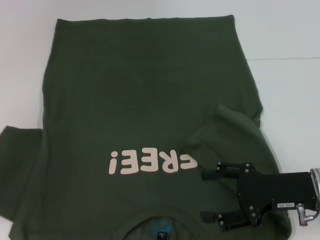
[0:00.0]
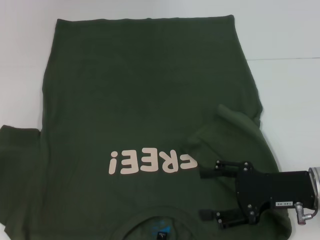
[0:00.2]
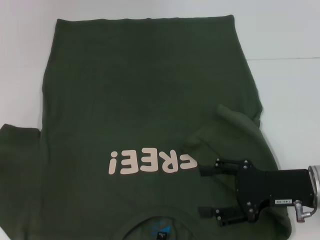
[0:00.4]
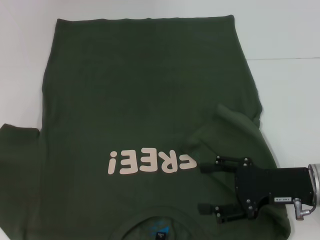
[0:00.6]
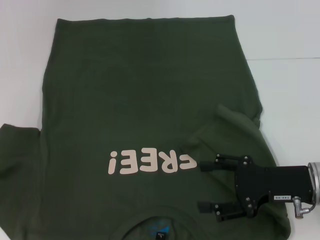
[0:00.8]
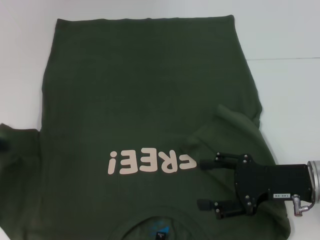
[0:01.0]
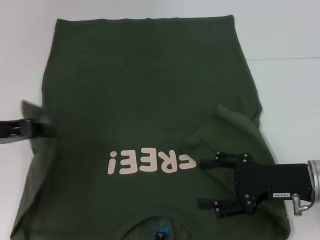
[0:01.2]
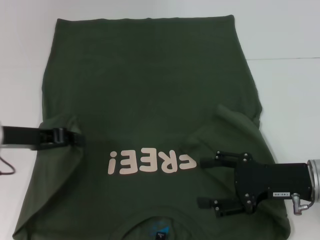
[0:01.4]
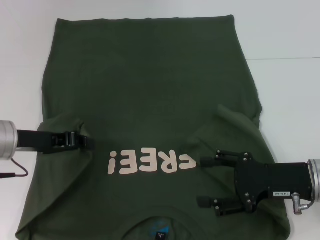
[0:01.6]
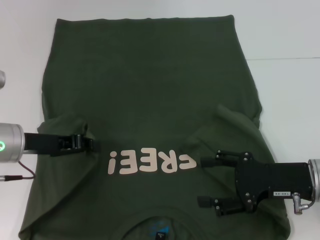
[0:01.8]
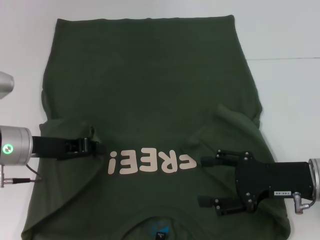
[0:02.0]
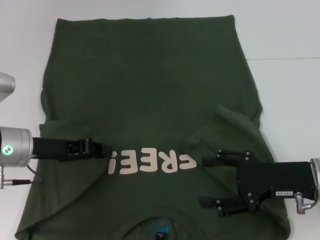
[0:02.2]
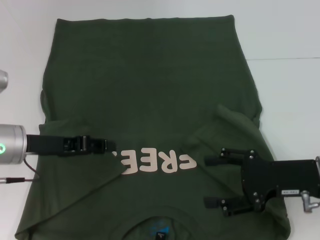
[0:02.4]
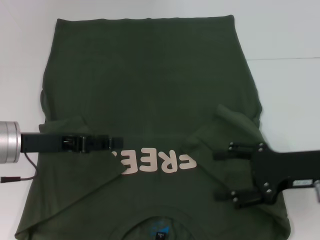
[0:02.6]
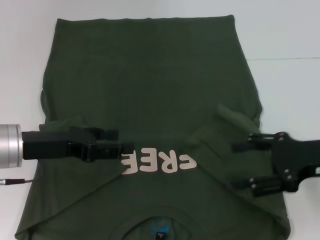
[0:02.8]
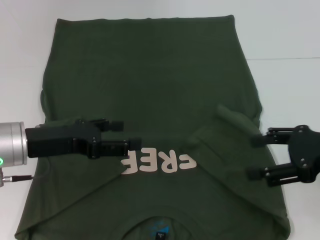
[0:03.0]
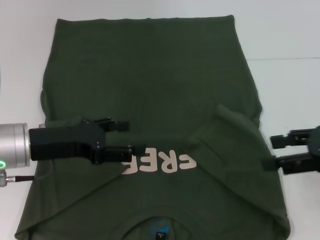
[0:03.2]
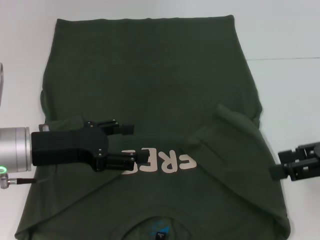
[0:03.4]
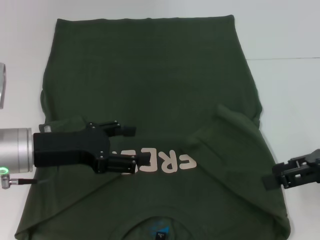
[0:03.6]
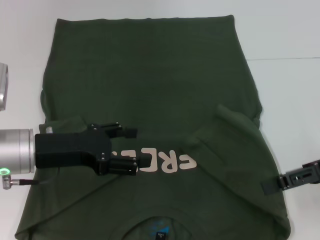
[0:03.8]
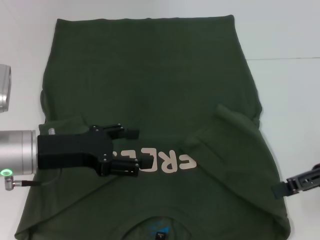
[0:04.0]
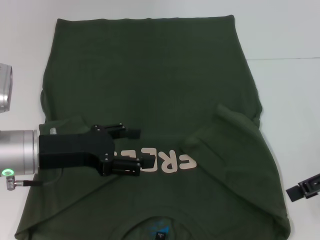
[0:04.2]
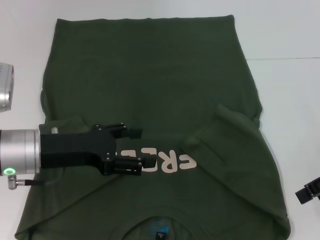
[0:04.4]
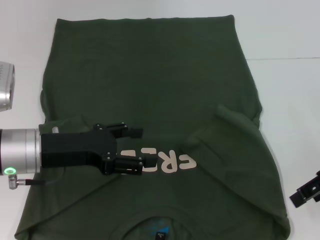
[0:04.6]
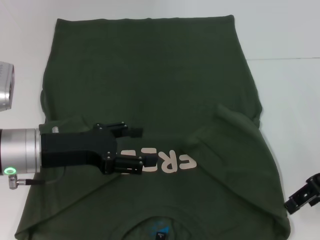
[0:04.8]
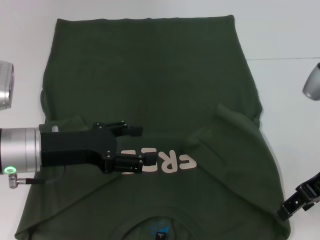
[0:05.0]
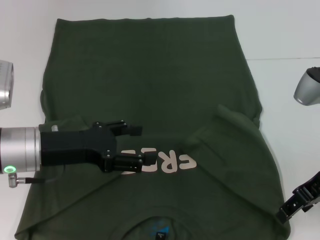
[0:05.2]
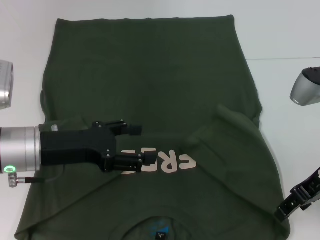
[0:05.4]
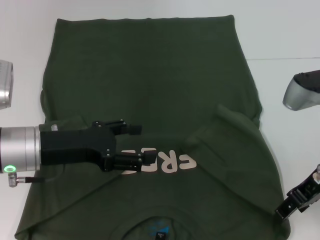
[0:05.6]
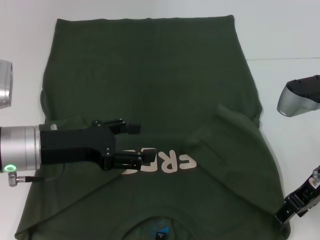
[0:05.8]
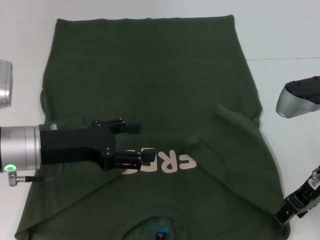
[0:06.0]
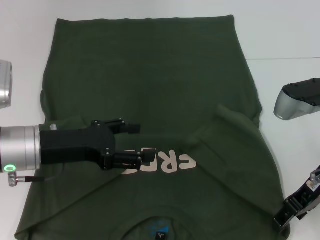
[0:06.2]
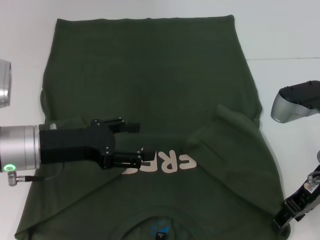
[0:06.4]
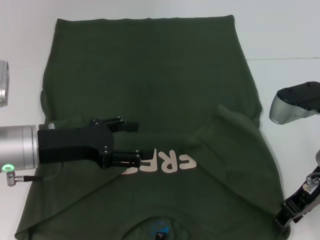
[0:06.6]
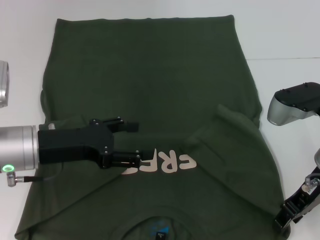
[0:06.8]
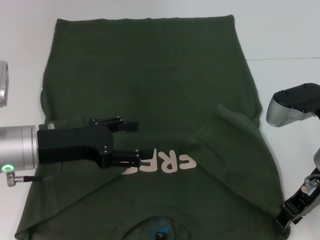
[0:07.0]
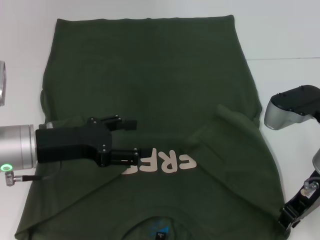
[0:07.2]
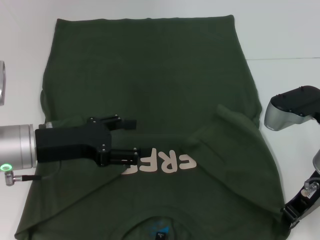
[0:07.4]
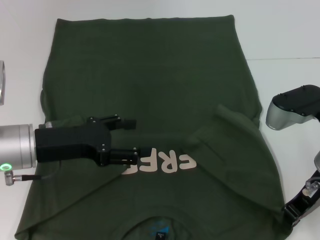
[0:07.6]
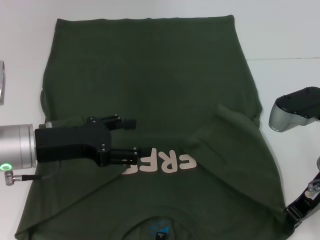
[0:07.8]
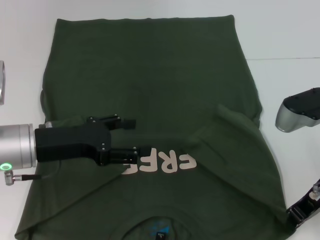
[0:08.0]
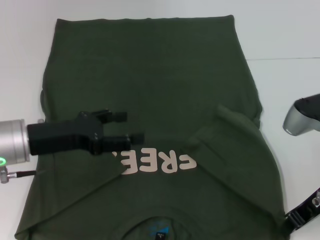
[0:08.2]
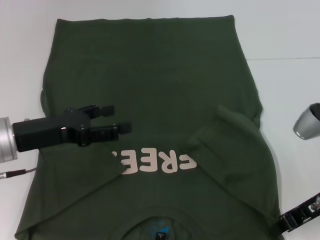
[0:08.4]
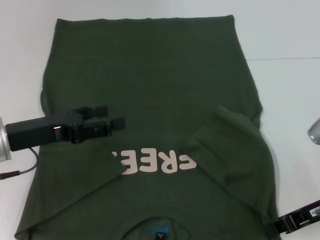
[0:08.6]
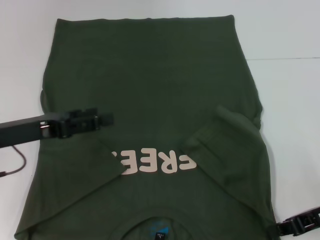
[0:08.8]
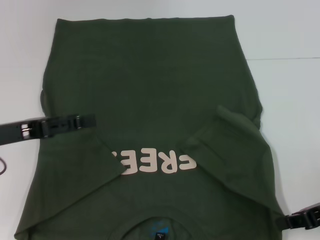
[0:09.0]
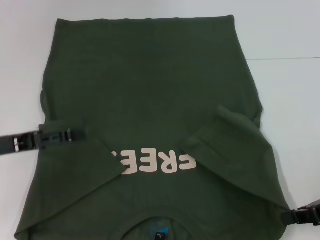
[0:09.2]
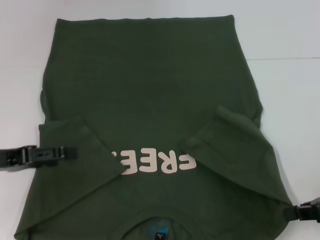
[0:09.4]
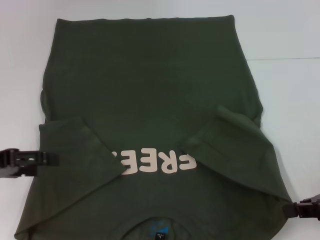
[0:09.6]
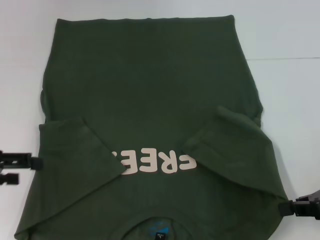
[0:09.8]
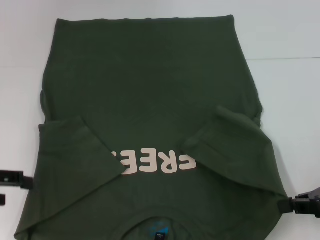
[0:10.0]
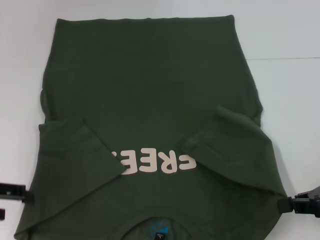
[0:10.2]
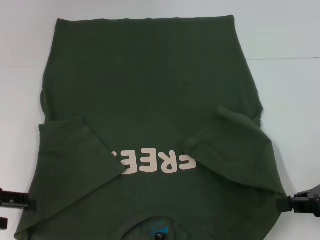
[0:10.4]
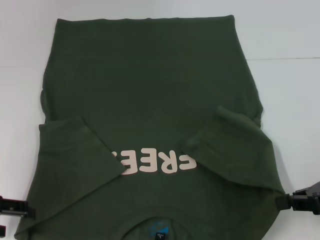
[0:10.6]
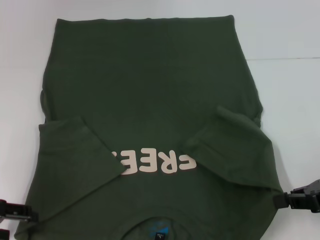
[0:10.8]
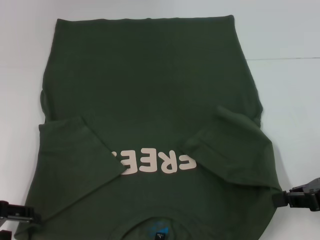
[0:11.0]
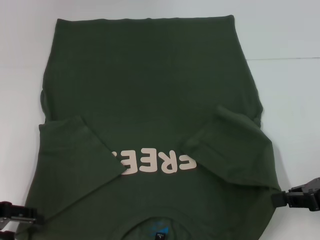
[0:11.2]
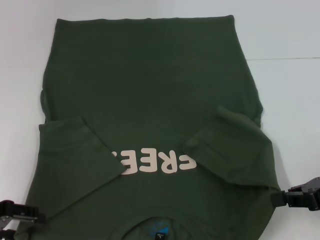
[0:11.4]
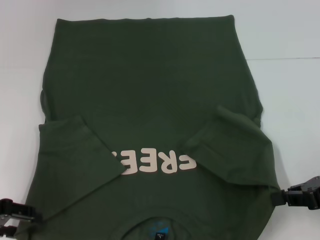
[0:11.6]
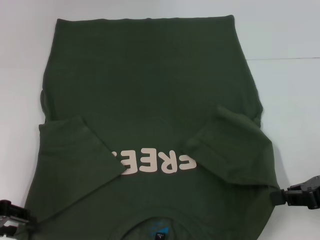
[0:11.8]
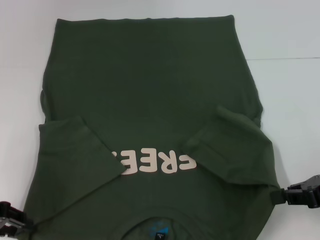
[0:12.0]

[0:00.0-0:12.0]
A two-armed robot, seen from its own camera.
Step, 0:00.0 to 0:02.4: Fold the bottom left sleeve with your left hand.
Step, 0:02.6 to 0:08.8: Grab the bottom right corner with your right hand.
0:00.0 to 0:01.6: The left gripper goes about 15 cm to the right and forward.
0:01.6 to 0:03.0: The left gripper opens. Meanwhile the right gripper travels upward by roughly 10 cm.
0:04.4 to 0:06.0: The right gripper travels to the left by about 10 cm.
0:06.0 to 0:07.6: The right gripper closes its fingers.
0:07.6 to 0:09.0: The left gripper is displaced to the left by approximately 5 cm, while the right gripper shifts some 10 cm to the right and backward.
0:09.0 to 0:10.4: The left gripper changes place by some 5 cm.
0:10.4 to 0:12.0: The left gripper closes its fingers.

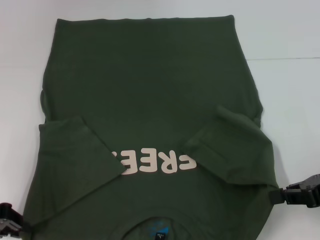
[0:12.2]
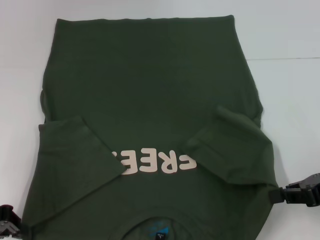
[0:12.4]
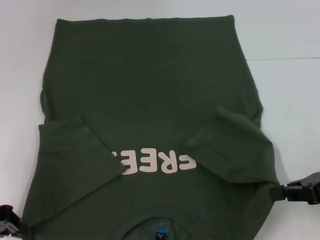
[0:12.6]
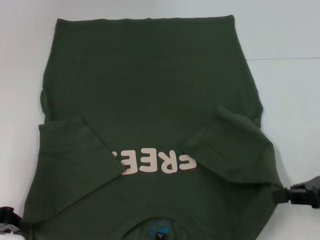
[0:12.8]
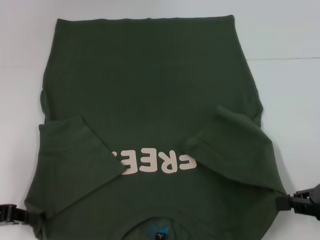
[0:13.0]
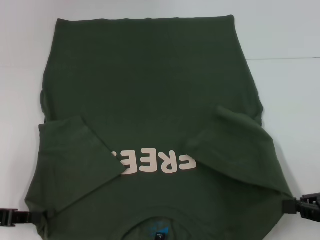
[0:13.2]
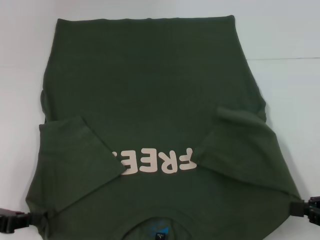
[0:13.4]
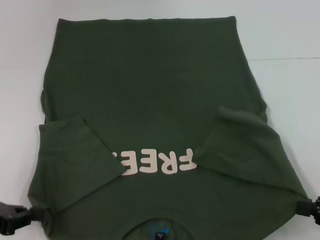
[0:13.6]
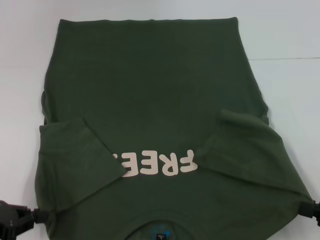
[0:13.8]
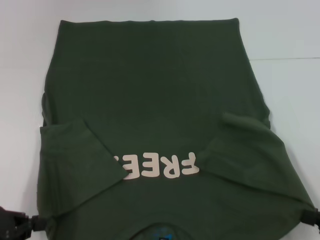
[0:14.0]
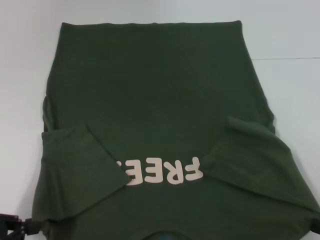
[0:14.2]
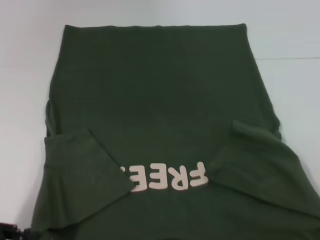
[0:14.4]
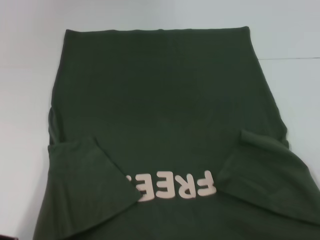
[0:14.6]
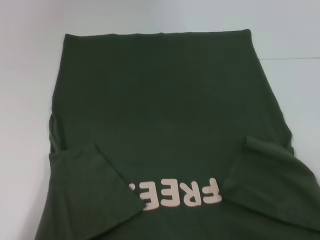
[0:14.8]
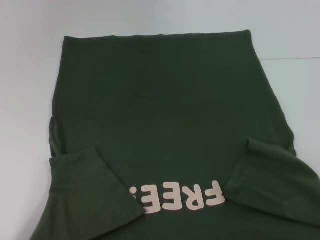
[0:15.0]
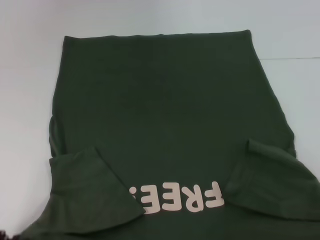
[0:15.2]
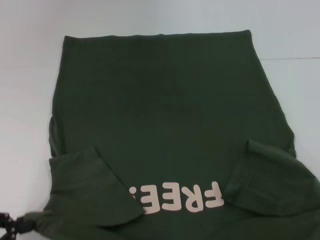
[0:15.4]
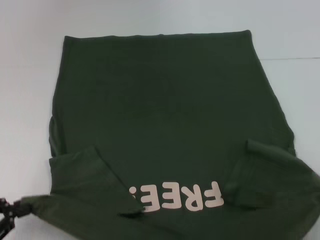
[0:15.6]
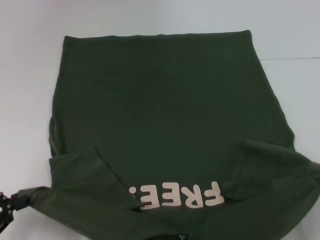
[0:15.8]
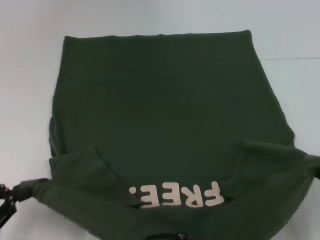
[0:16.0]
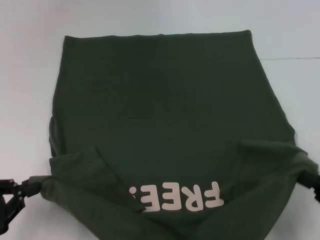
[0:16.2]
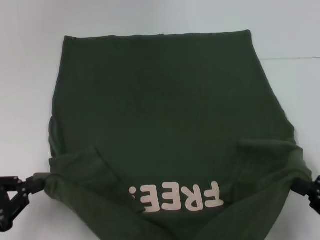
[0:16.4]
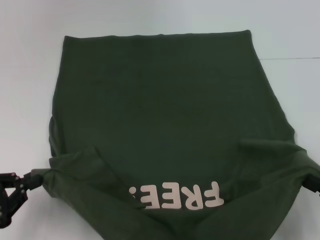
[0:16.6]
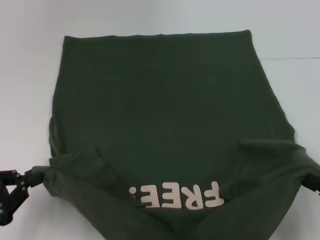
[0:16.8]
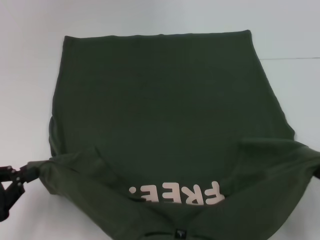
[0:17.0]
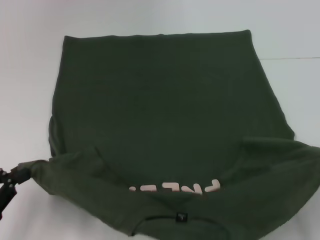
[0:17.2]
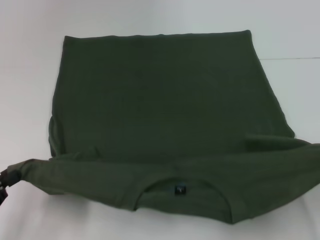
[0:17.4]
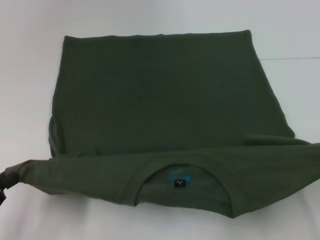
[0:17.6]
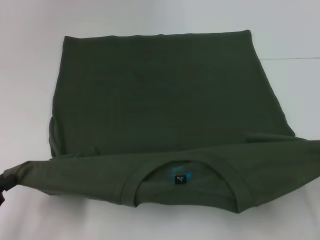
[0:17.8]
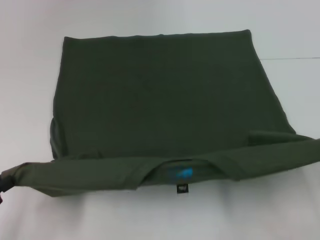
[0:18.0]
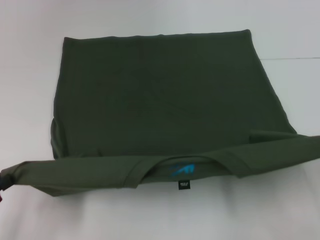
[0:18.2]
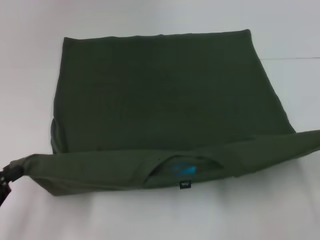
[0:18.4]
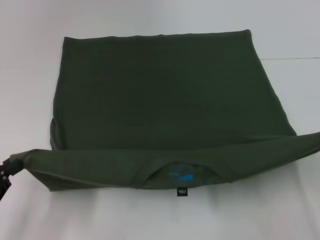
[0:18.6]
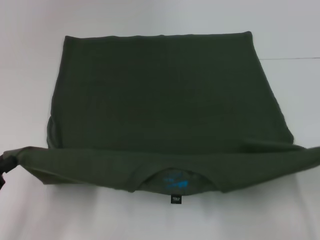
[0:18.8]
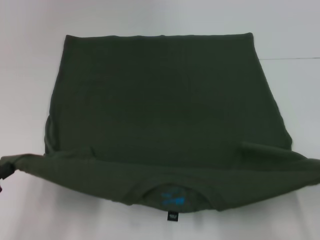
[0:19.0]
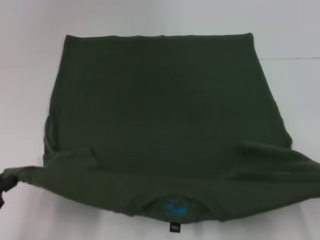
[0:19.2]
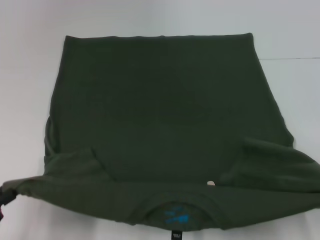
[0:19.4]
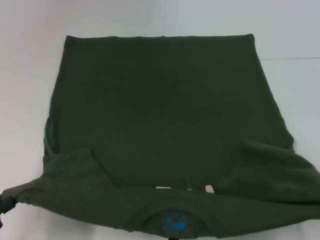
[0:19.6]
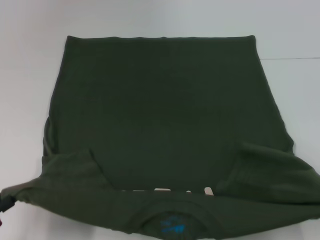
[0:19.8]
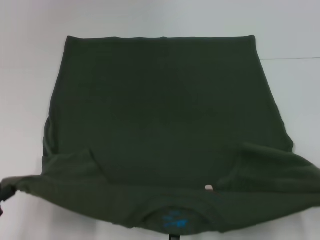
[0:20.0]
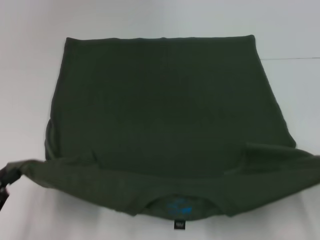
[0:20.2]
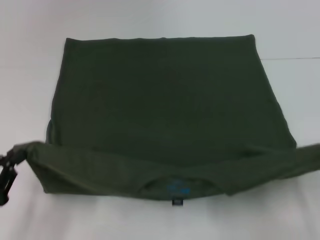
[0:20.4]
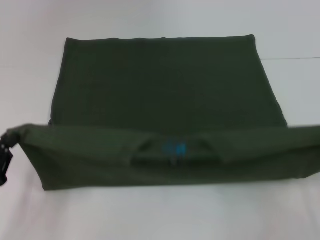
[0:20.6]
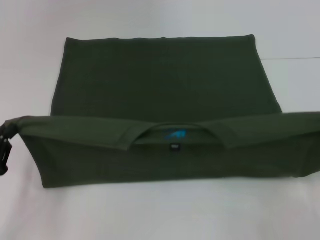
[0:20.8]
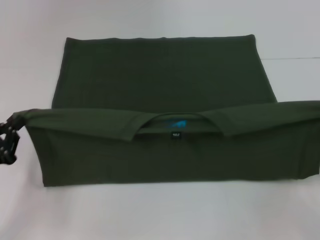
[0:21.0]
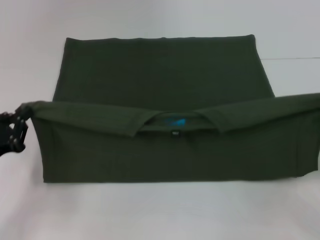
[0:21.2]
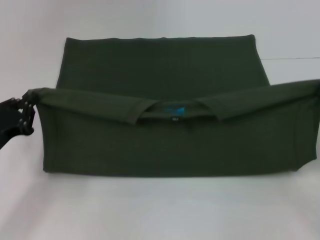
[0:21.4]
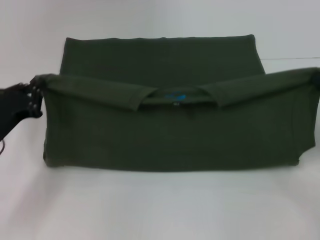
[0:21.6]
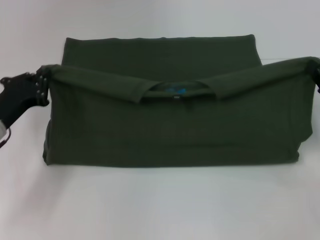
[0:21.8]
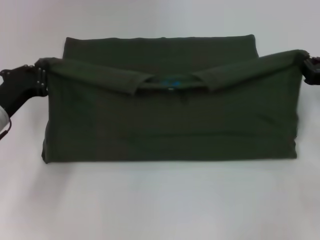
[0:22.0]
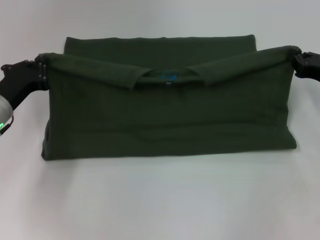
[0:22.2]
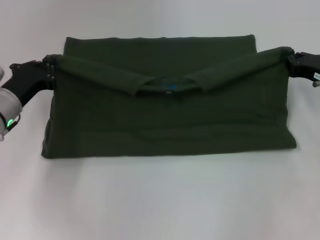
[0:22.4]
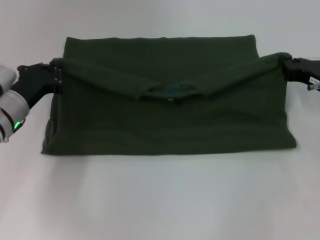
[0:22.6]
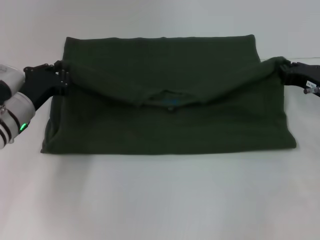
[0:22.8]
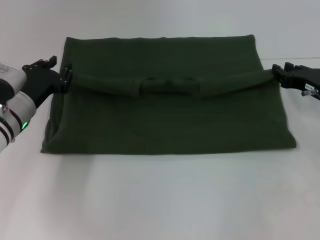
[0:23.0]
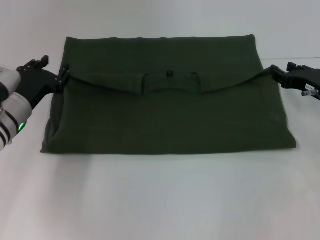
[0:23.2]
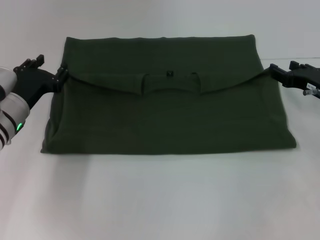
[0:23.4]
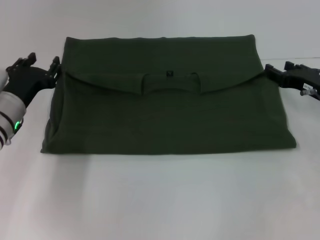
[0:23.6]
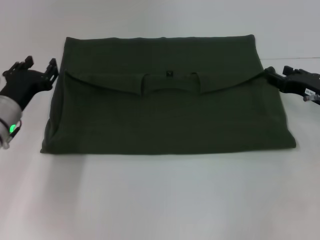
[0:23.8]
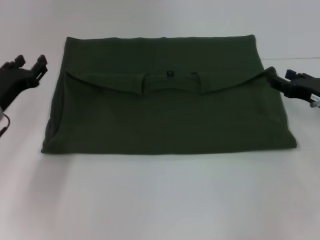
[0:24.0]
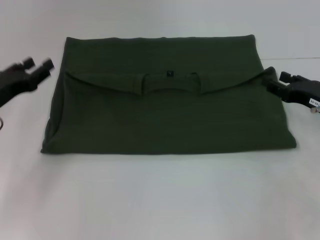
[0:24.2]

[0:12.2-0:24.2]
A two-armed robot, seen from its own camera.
Step, 0:13.4 to 0:23.2: Fold the clothes with your left hand.
Step, 0:13.4 to 0:23.2: Fold the clothes with your right hand.
0:12.2 to 0:13.8: The right gripper moves backward, downward and to the right, some 10 cm, while the left gripper moves some 5 cm, and closes up.
0:13.8 to 0:15.2: The grippers both shift backward by roughly 10 cm.
0:15.2 to 0:16.6: The right gripper is displaced forward by some 10 cm.
0:18.2 to 0:19.8: The right gripper shifts about 5 cm backward.
0:19.8 to 0:21.2: The two grippers go roughly 15 cm forward.
0:21.2 to 0:22.6: The right gripper goes some 15 cm forward; the left gripper shifts some 15 cm forward and to the right.
0:22.6 to 0:24.2: The left gripper is displaced to the left by some 5 cm, and opens its fingers, while the right gripper opens.
